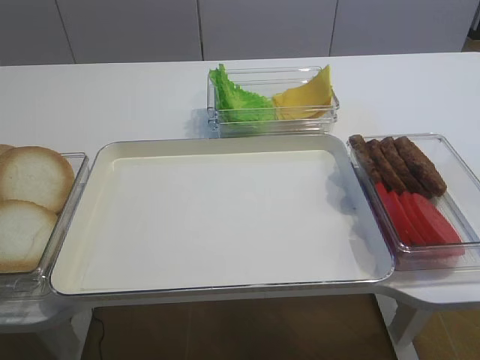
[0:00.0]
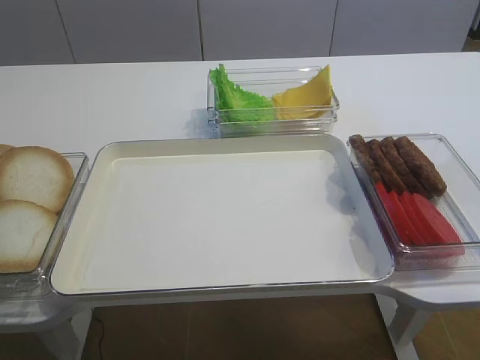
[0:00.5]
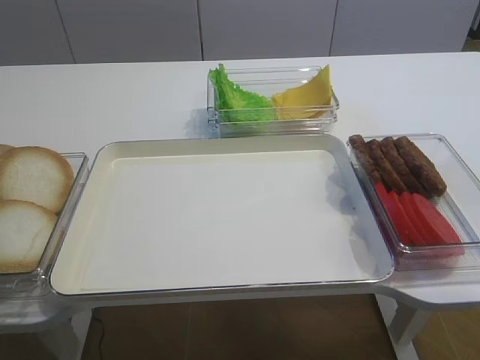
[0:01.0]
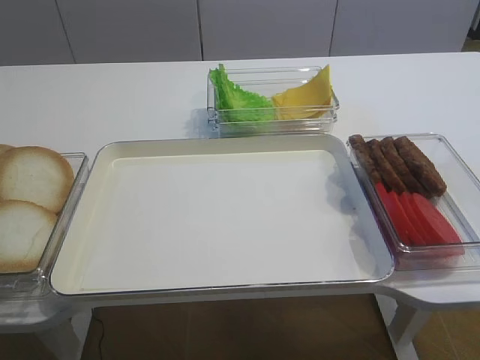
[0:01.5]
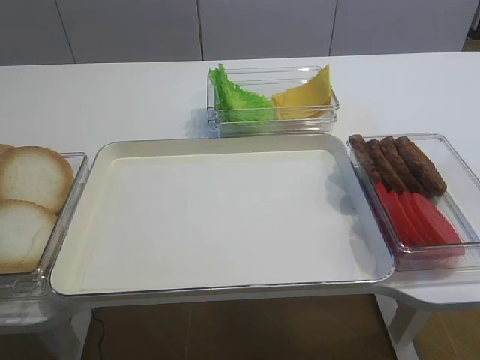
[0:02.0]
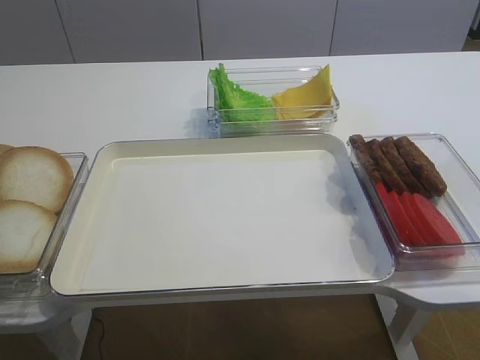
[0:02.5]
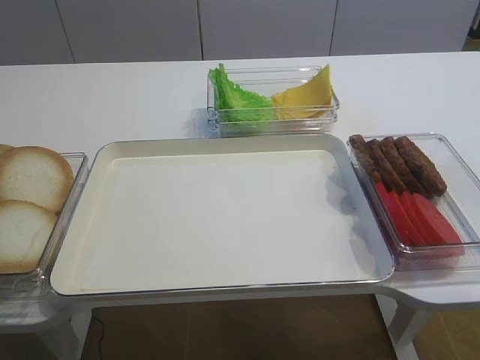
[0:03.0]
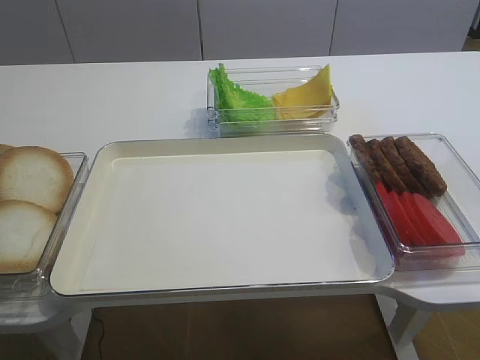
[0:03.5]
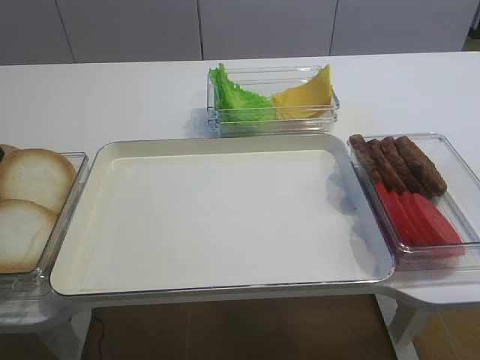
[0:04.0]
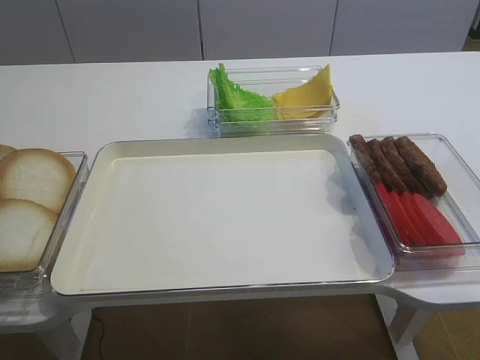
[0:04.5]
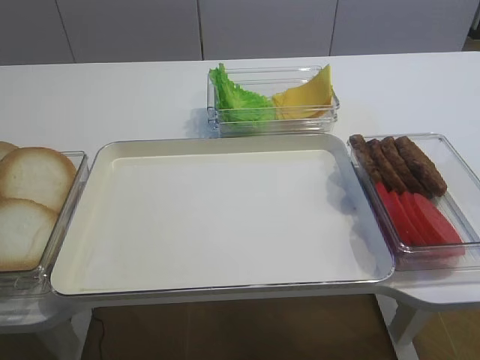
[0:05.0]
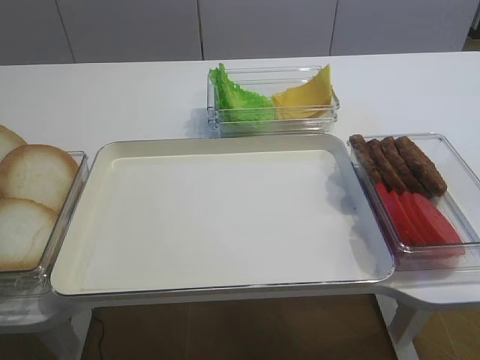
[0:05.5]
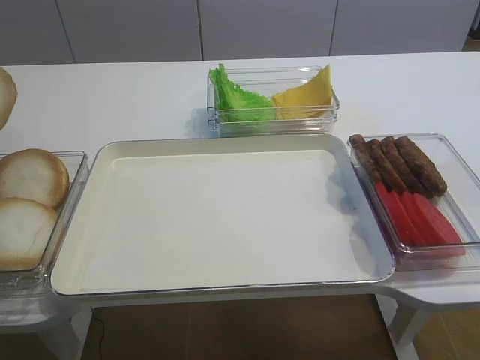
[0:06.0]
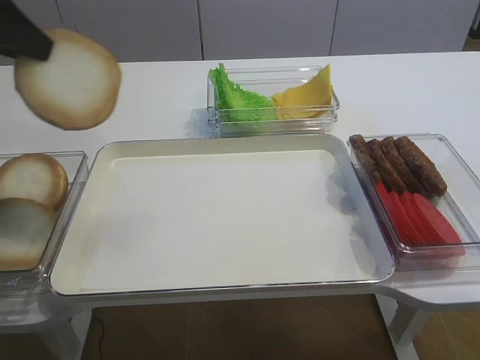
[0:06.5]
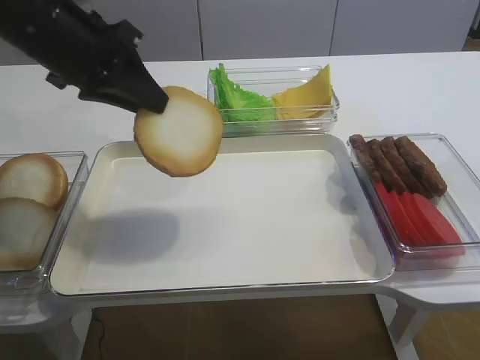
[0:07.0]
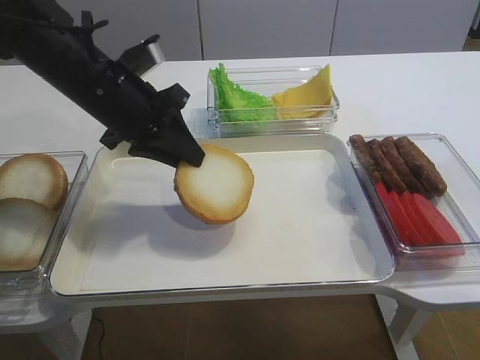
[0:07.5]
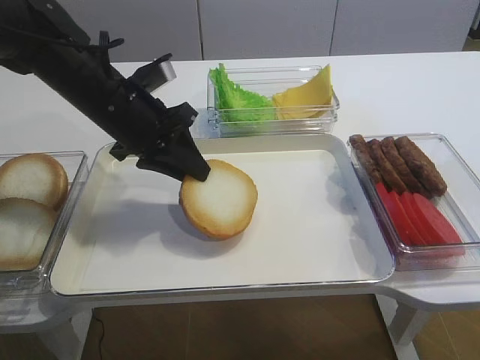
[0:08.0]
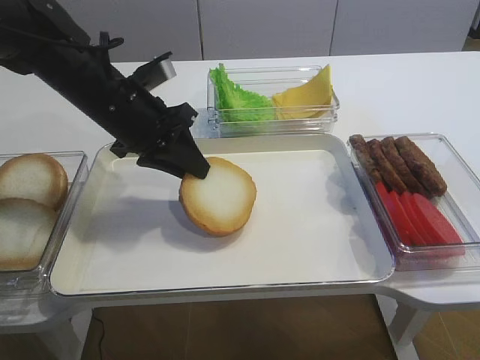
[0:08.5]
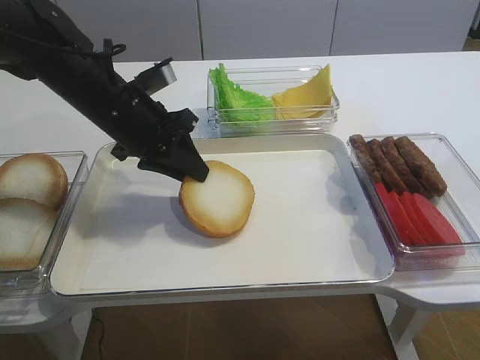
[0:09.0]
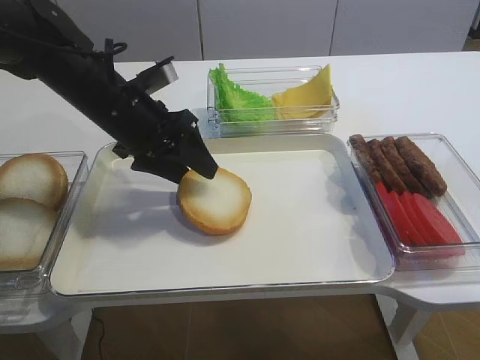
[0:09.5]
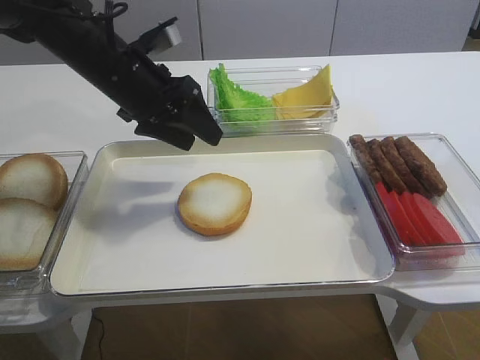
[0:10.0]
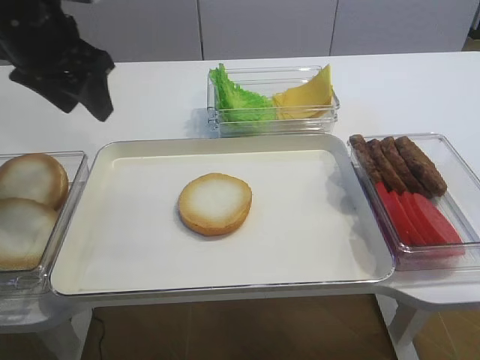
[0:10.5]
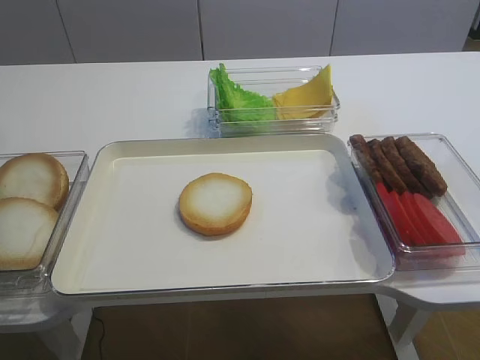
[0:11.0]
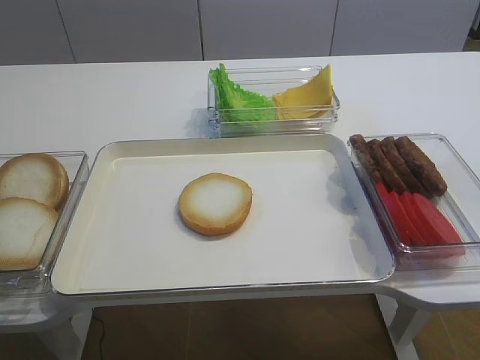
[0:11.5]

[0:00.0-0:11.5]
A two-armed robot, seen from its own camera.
Step, 0:06.0 to 0:10.0: Place the bread slice on the tray with the left gripper.
0:04.0 to 0:06.0: The left gripper moves upward, about 10 cm, and closes its fingers.
0:06.0 to 0:07.5: The left gripper travels to the right and downward by approximately 25 cm.
0:07.5 to 0:09.5: The left gripper opens up.
0:09.5 to 0:11.5: The left gripper shifts some 30 cm backward, to the left and upward.

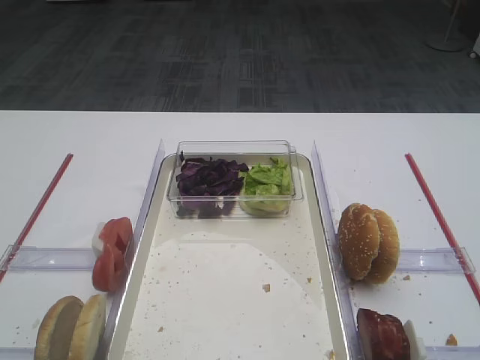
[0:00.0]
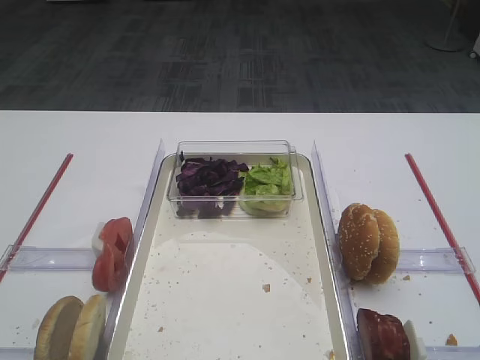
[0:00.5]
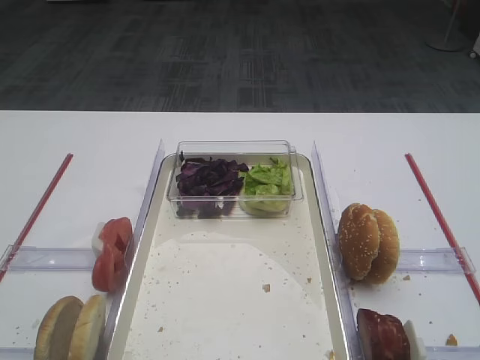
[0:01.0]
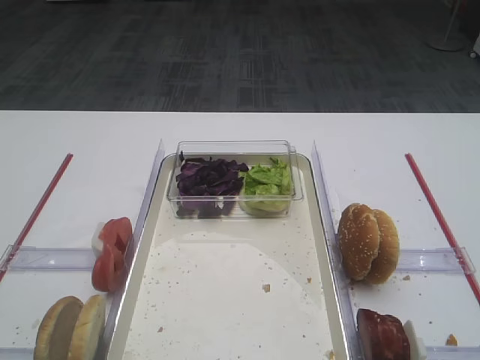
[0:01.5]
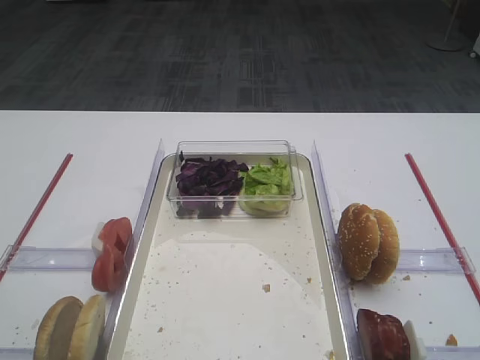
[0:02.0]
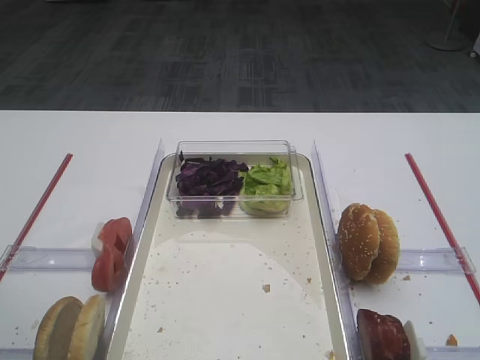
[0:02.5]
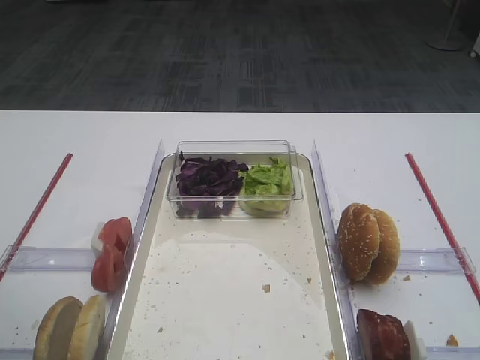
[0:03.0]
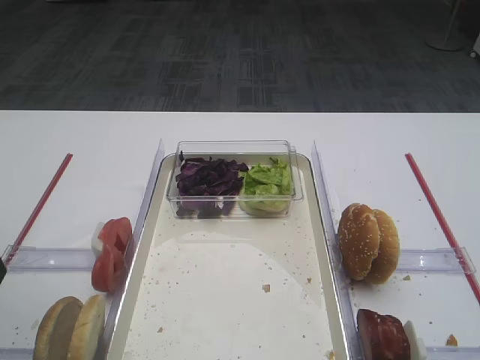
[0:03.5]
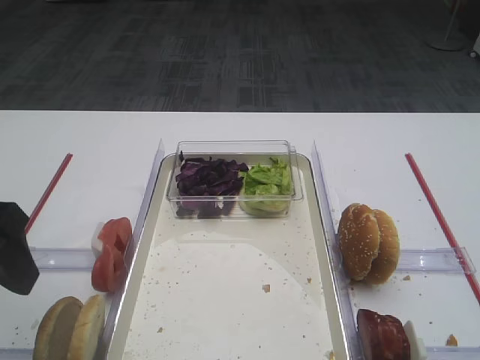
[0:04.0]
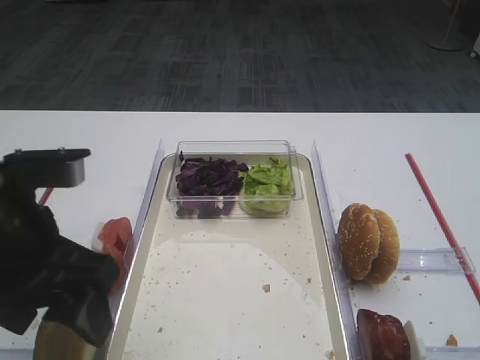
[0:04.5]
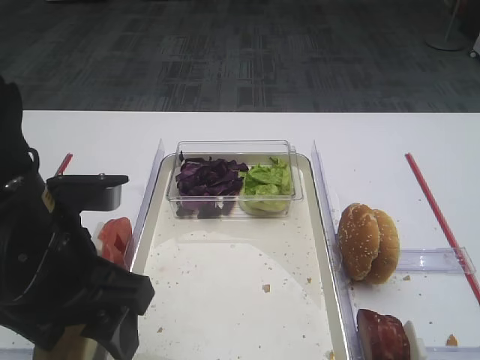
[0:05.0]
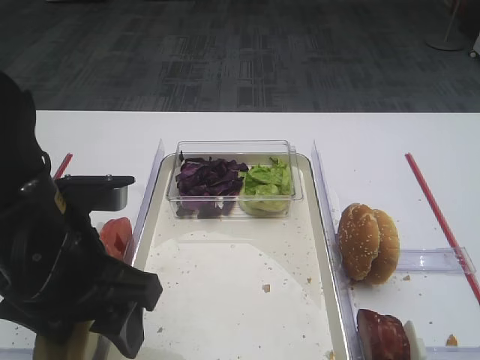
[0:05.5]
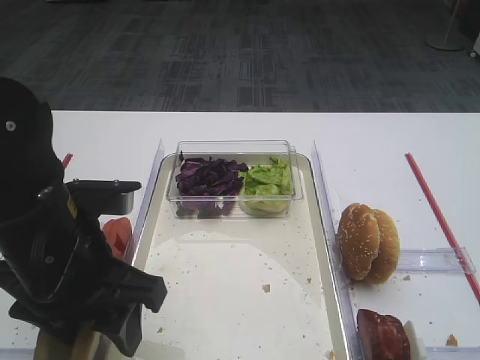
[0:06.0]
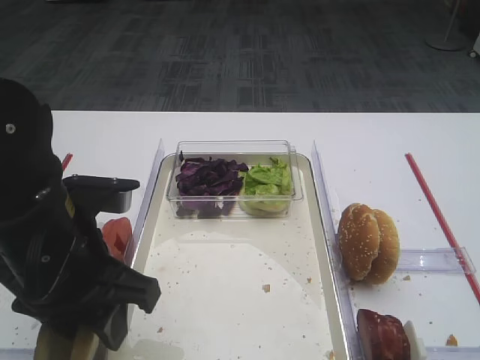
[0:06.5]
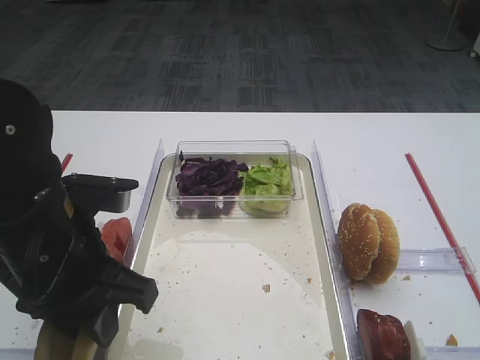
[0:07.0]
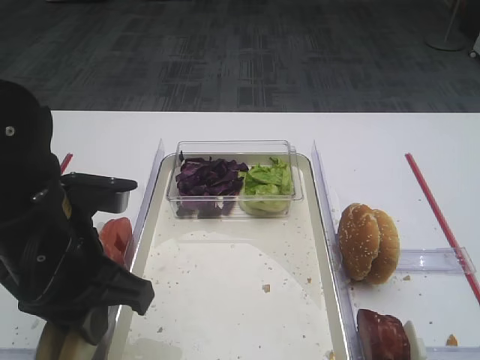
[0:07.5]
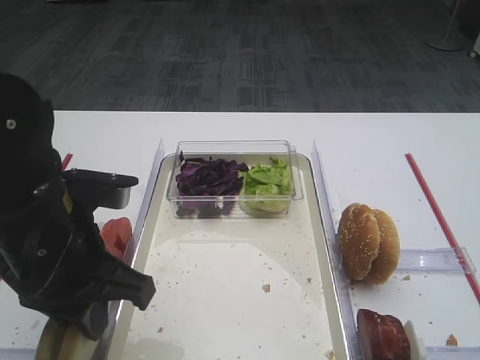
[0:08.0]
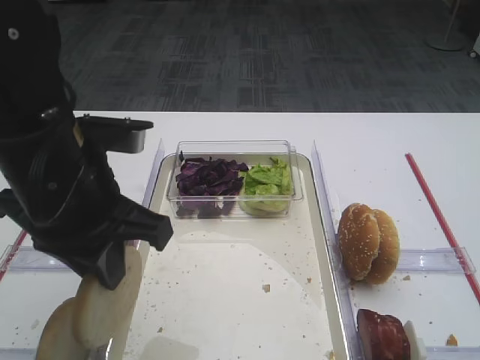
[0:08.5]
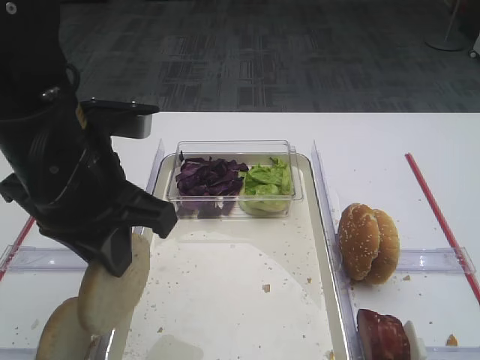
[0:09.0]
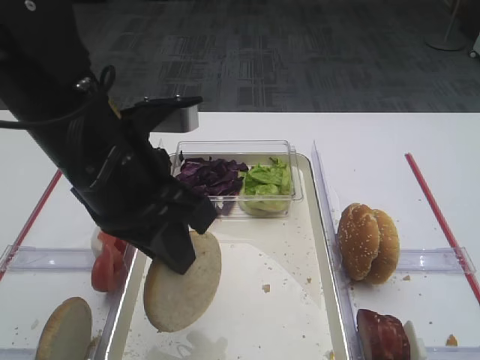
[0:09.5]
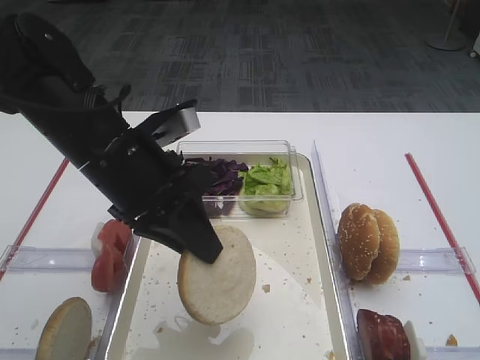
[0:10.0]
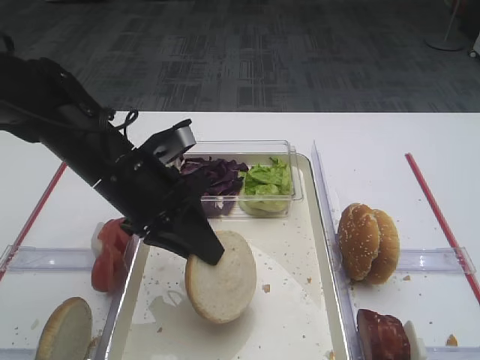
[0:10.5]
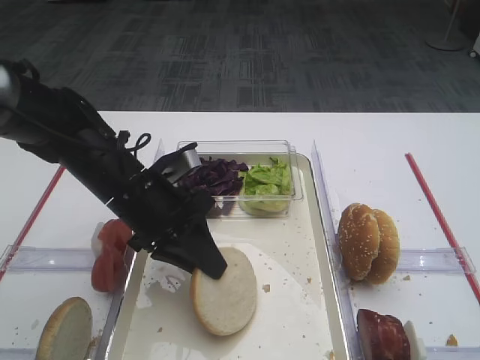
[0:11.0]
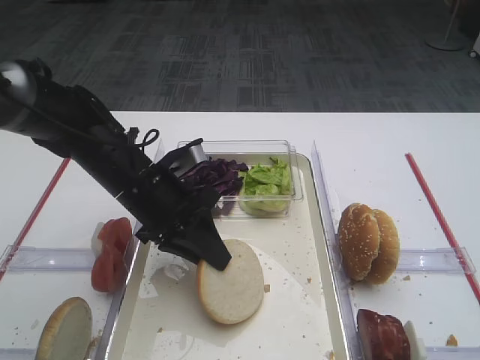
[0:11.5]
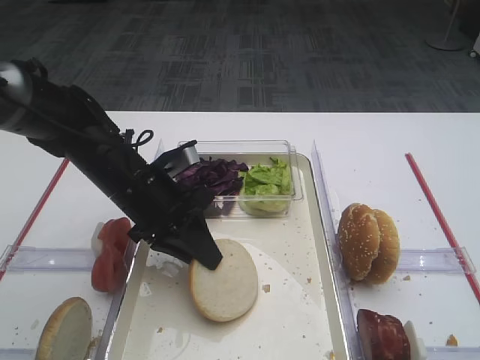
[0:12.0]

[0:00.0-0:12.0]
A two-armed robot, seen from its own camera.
Step, 0:00.0 to 0:08.0: Pick up the bread slice with the left gripper.
0:02.0 to 0:04.0: The left gripper shifts some 10 cm forward.
0:04.0 to 0:06.0: The left gripper is displaced to the right and downward by roughly 10 cm.
0:06.0 to 0:08.0: The left gripper closes up.
0:08.0 to 0:10.0: The left gripper shifts some 5 cm forward.
0:10.0 to 0:12.0: The left gripper heads downward and forward, covering approximately 10 cm.

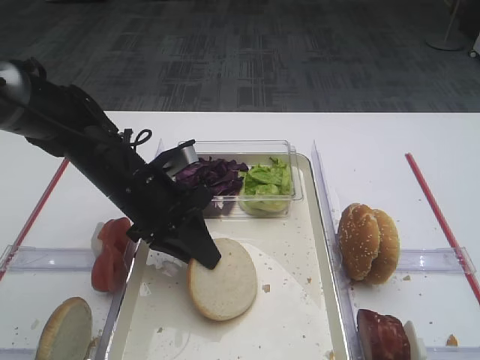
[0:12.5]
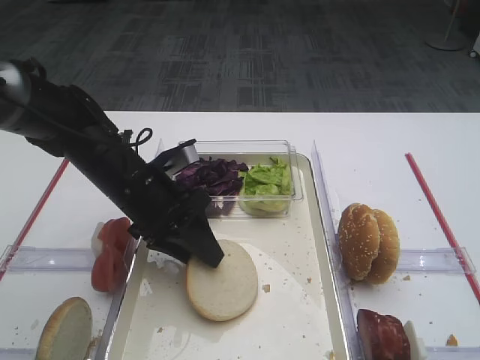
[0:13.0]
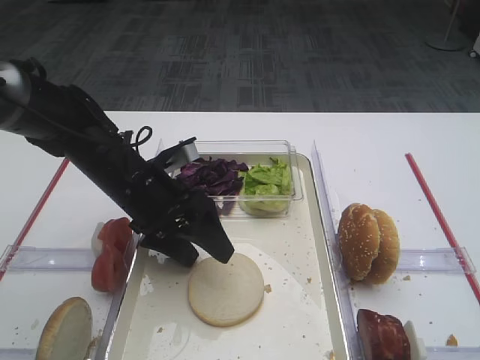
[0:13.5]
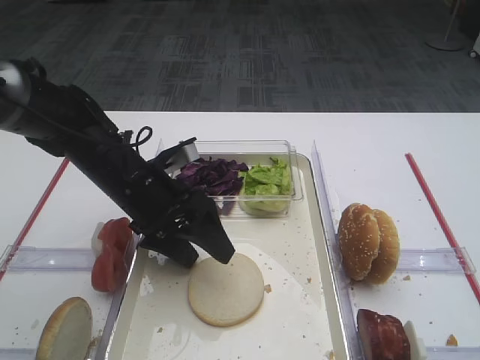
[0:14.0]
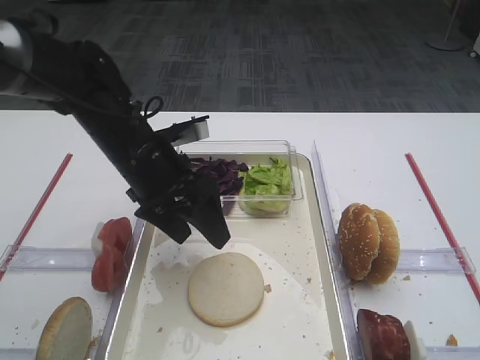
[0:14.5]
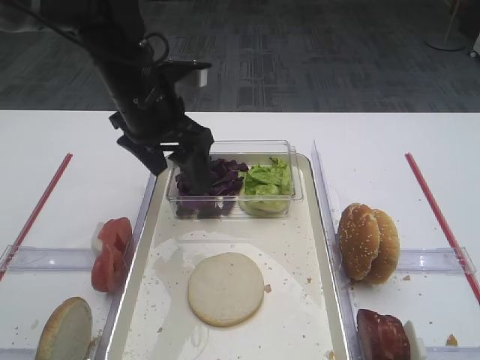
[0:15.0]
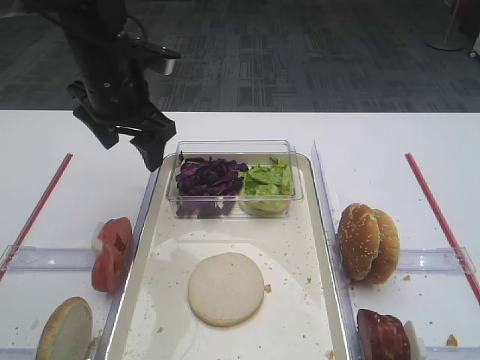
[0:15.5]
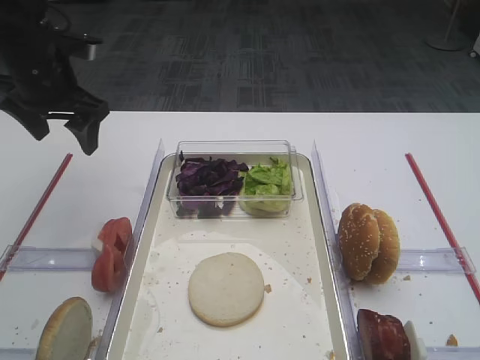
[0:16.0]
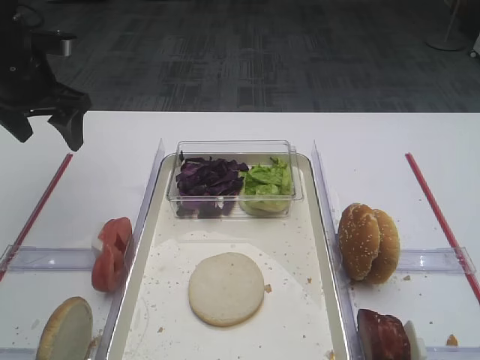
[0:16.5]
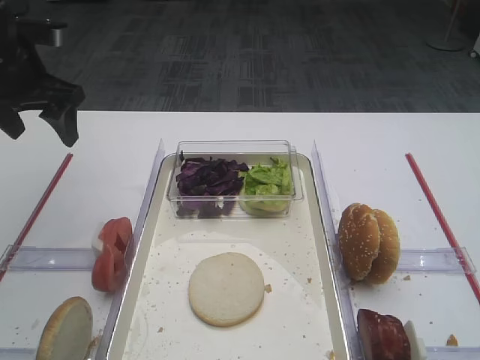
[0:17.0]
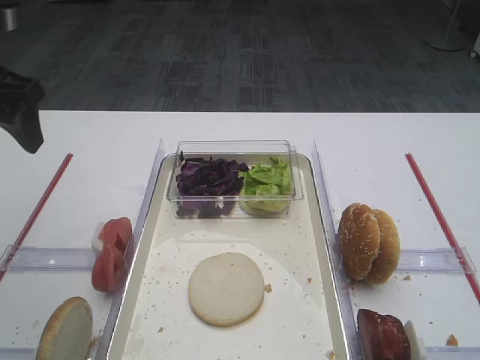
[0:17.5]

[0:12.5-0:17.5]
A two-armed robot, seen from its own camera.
0:12.5 to 0:15.0: The left gripper shifts about 10 cm upward and forward, and opens up.
0:15.0 to 0:17.5: The left gripper goes approximately 20 cm to the left, upward and backward.
